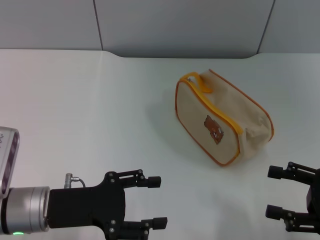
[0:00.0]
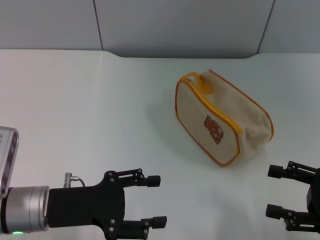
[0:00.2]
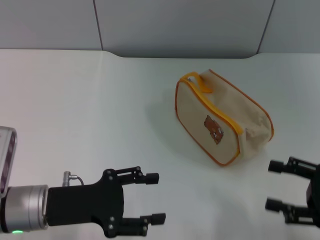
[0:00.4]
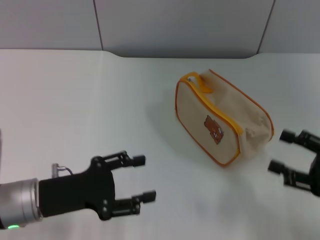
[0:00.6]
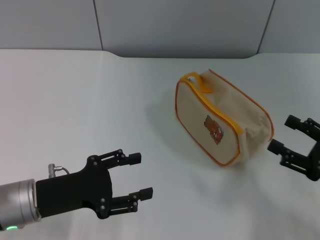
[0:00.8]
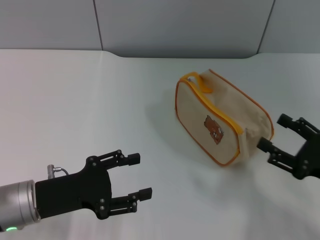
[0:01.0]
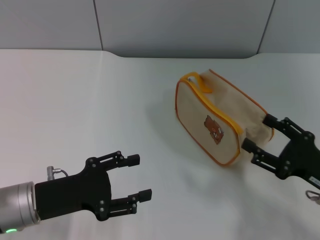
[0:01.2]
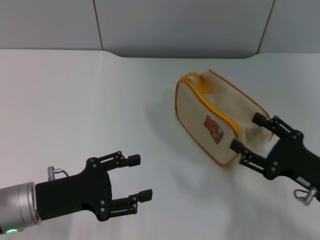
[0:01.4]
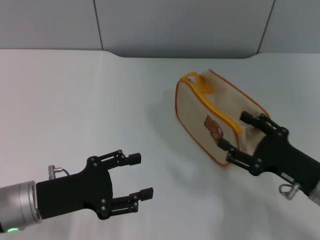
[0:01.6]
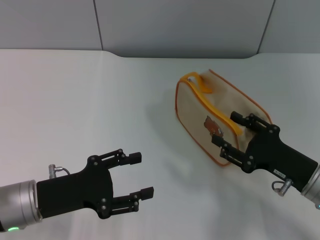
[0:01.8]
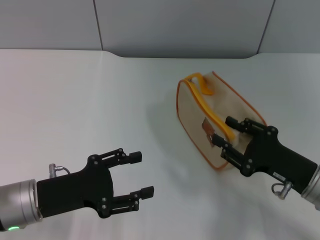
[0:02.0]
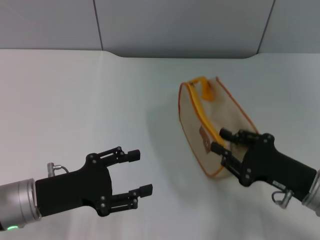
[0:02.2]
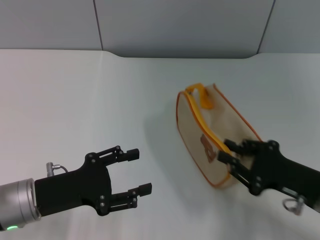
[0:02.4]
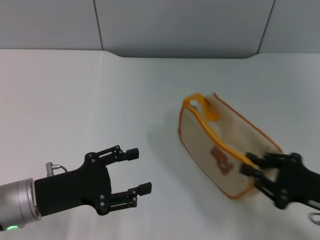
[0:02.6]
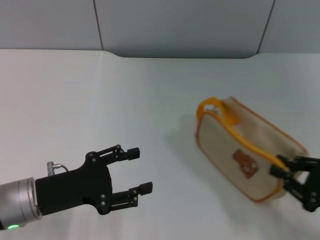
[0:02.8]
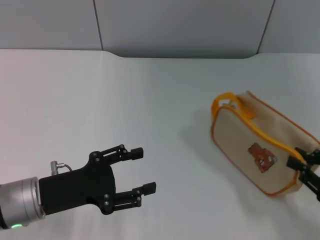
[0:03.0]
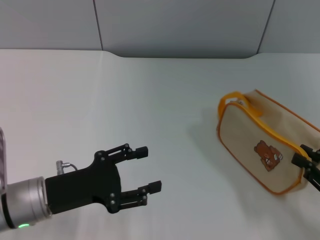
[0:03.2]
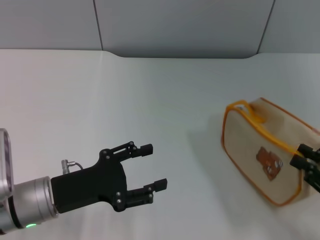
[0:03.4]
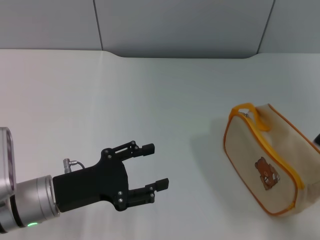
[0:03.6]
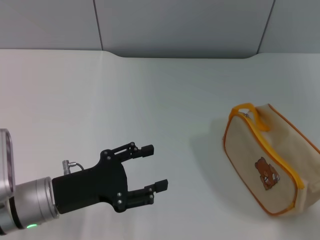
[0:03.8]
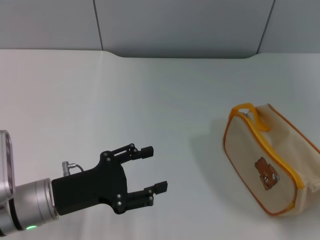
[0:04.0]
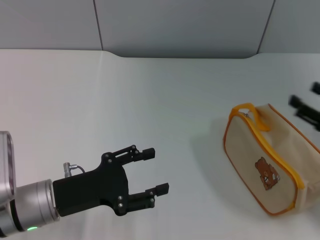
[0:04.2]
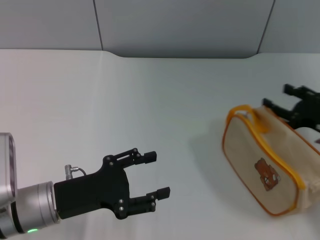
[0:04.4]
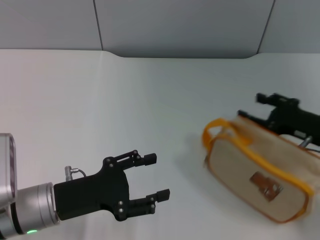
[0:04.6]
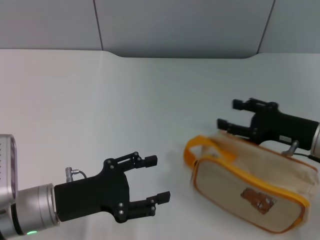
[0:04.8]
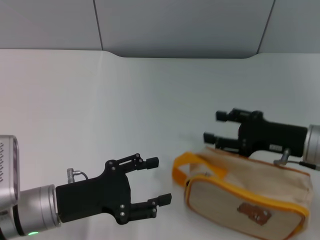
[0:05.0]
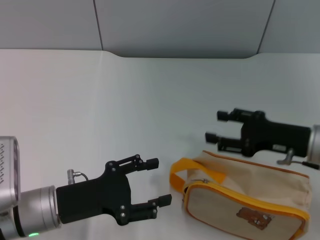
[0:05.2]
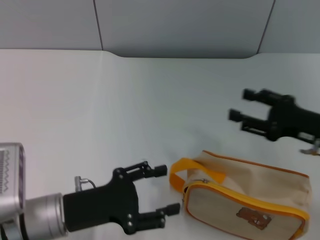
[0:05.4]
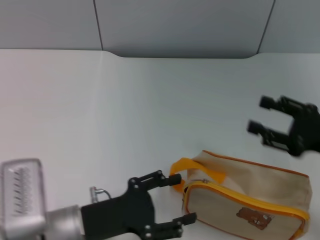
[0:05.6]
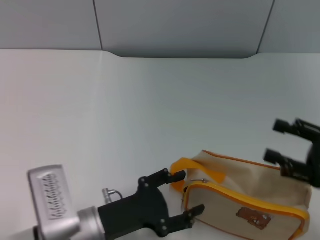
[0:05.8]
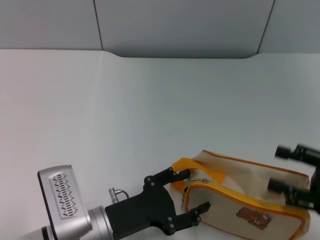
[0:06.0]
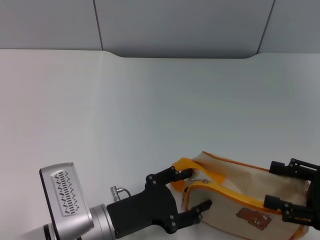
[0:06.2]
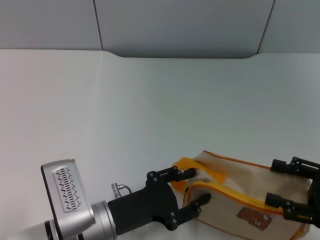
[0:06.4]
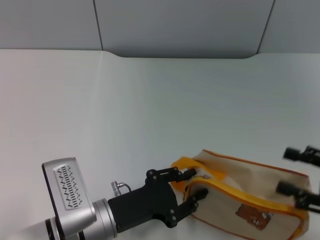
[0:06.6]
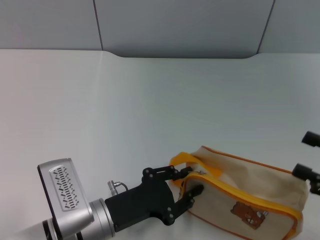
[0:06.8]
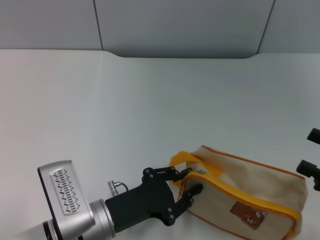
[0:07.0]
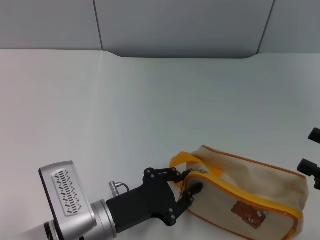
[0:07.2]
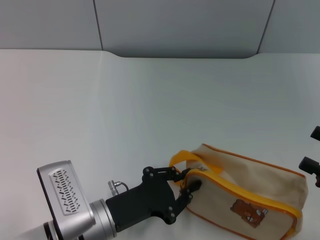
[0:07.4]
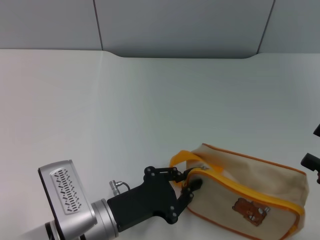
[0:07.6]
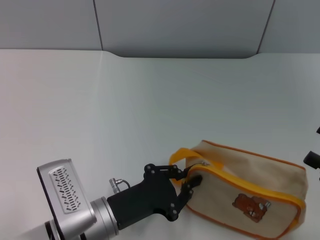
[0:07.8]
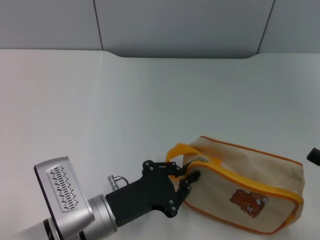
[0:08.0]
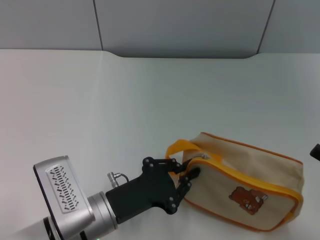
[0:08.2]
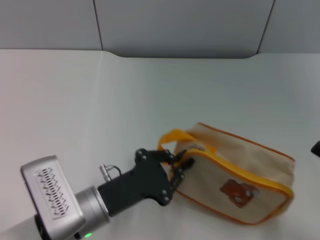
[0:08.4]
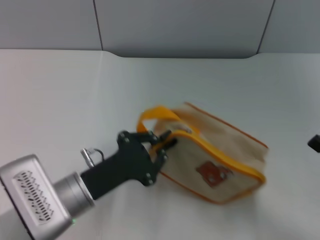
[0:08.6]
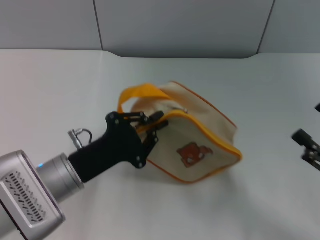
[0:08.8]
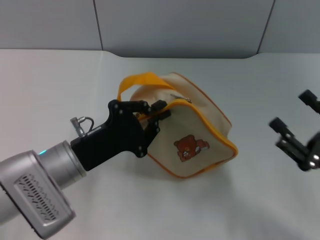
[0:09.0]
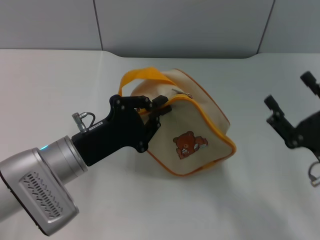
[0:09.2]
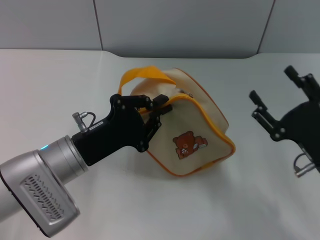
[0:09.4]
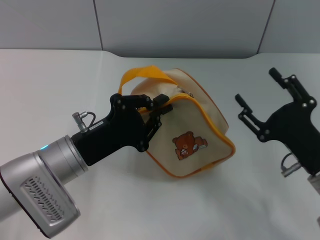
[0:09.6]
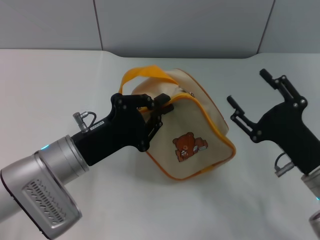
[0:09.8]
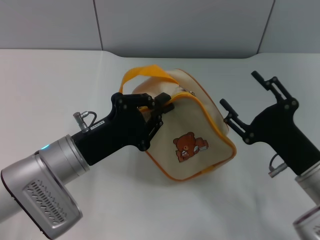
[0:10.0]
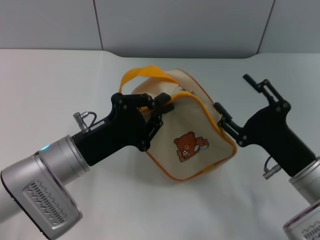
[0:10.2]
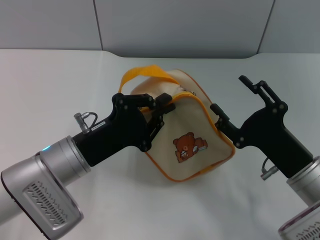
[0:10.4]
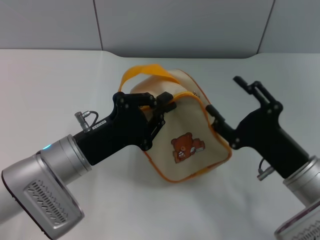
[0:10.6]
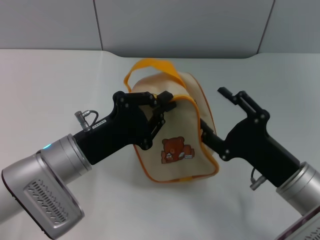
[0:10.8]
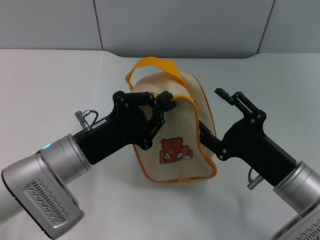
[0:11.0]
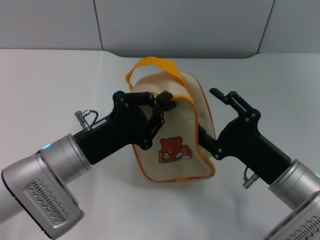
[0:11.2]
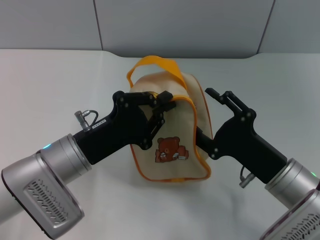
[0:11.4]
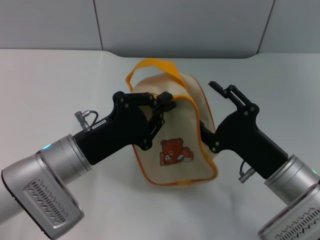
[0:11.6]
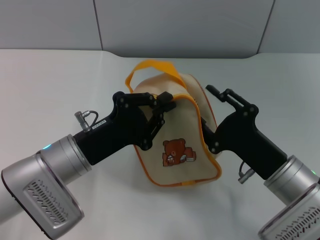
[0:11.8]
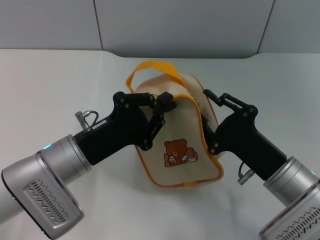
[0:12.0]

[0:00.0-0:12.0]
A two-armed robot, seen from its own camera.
Step, 0:00.0 to 0:08.8: Pick up the bag with left gripper.
0:00.0 to 0:01.6: The right gripper is displaced to the left by roughly 5 cm.
0:01.6 to 0:03.0: The right gripper is displaced to the right by about 10 cm, and closes.
0:03.0 to 0:04.4: The right gripper heads forward, covering roughly 10 cm, and opens its fingers.
0:04.4 to 0:06.0: The left gripper heads to the right, covering approximately 5 cm, while the right gripper shifts approximately 10 cm backward.
0:06.0 to 0:07.6: The left gripper closes up.
0:07.6 to 0:09.0: The right gripper moves to the left, approximately 5 cm; the left gripper moves forward and upward, some 10 cm.
0:09.0 to 0:10.4: The right gripper heads to the left, covering about 5 cm.
0:10.4 to 0:12.0: The grippers make only small movements.

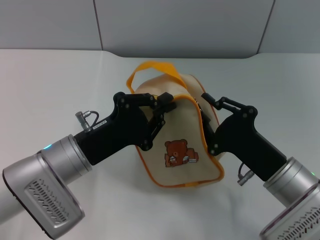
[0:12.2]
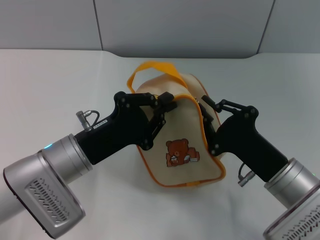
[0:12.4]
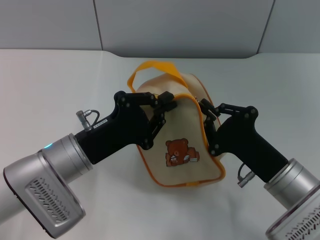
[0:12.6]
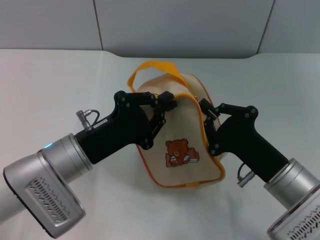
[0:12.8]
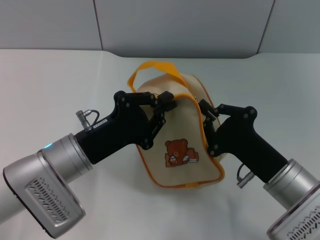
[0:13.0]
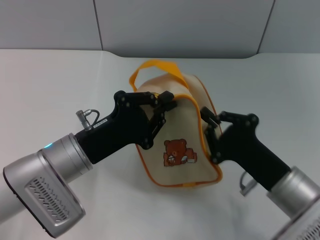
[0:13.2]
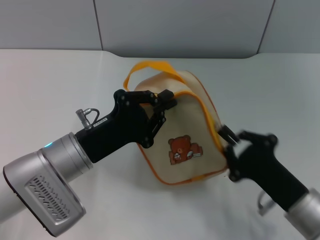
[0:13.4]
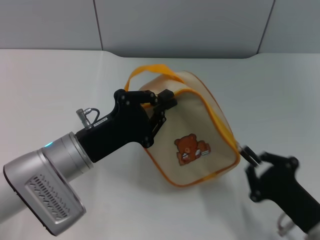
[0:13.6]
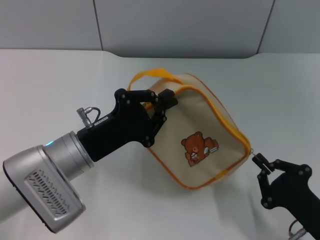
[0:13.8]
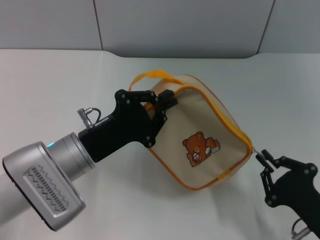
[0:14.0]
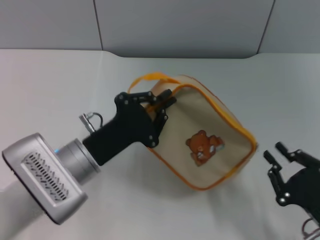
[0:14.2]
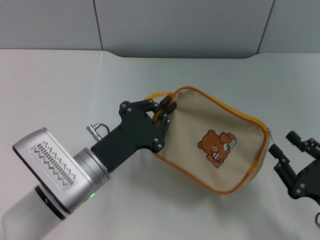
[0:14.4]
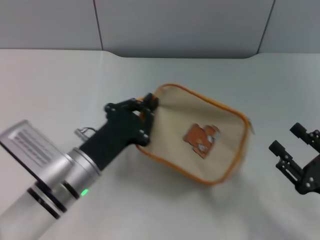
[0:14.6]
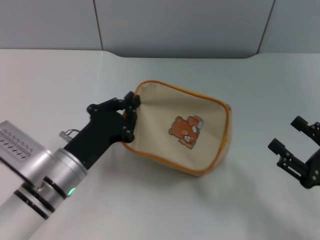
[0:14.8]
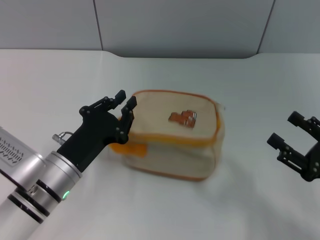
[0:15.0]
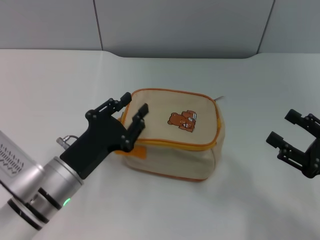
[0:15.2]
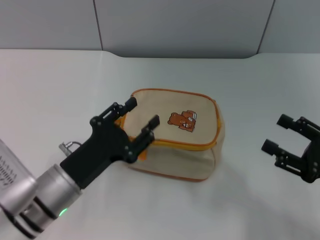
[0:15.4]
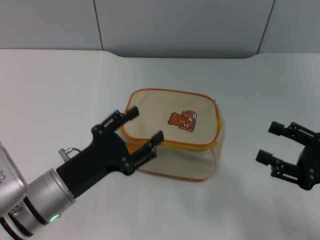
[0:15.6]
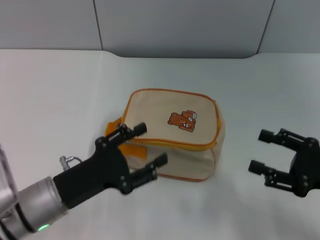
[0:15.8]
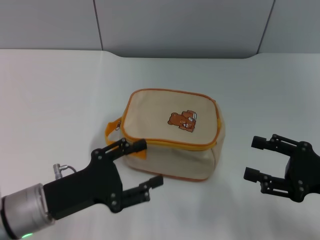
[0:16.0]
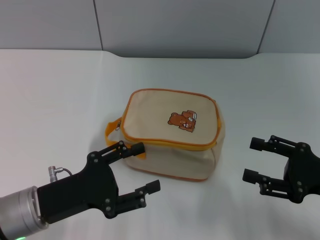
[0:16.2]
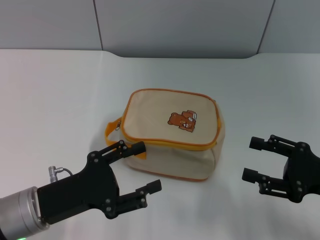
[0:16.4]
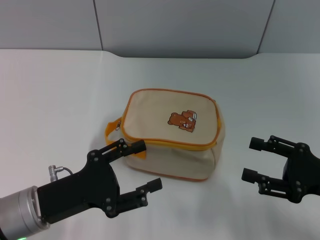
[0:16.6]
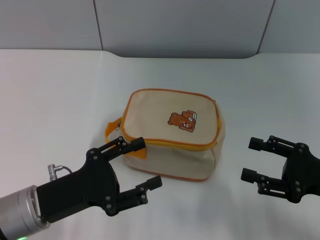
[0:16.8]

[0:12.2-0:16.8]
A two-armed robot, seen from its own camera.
Step, 0:12.2 to 0:14.4: Unzip the zipper of bag with right gripper.
Step, 0:14.6 to 0:15.4: Place the bag on the table with left gripper.
0:12.2 to 0:13.8: The right gripper moves backward and to the right, approximately 10 cm, and closes its fingers.
0:13.8 to 0:15.2: The right gripper moves to the right, upward and forward, approximately 10 cm, and opens up.
0:15.2 to 0:16.8: The left gripper ends up about 5 cm from where it was, and opens.
